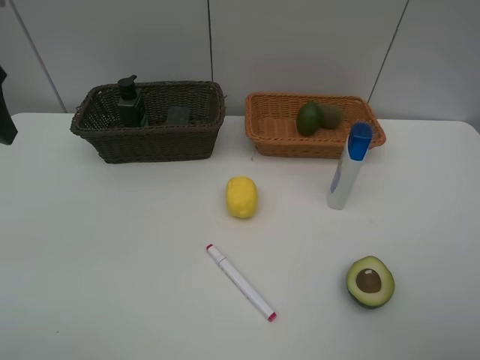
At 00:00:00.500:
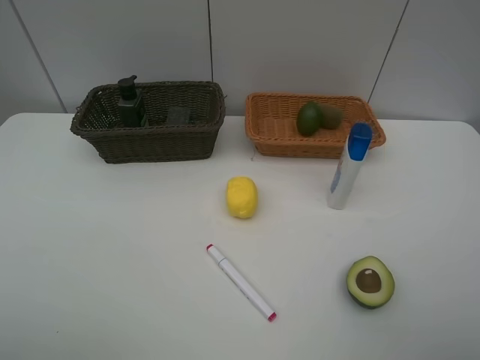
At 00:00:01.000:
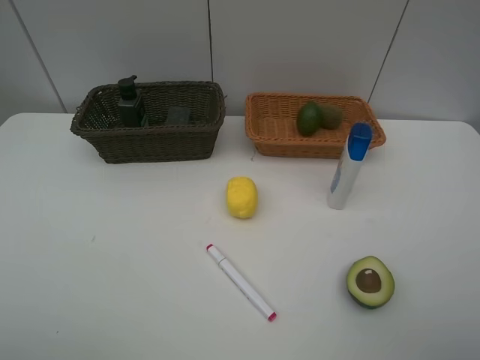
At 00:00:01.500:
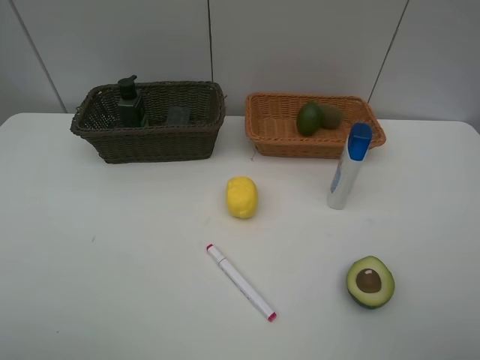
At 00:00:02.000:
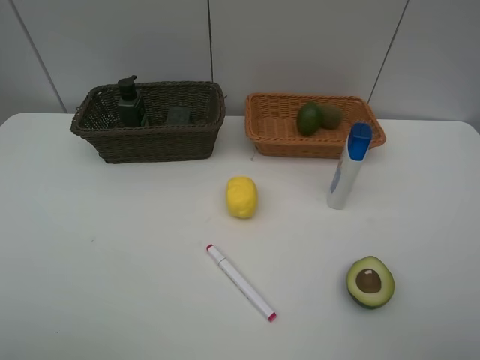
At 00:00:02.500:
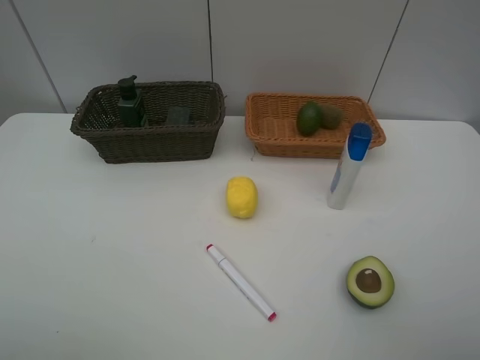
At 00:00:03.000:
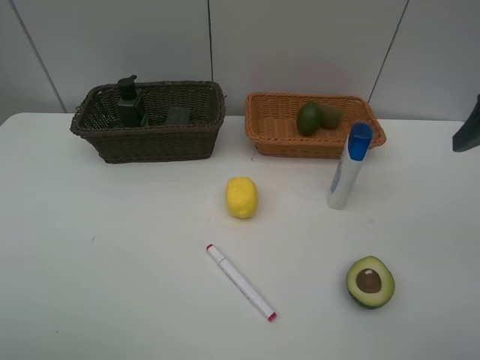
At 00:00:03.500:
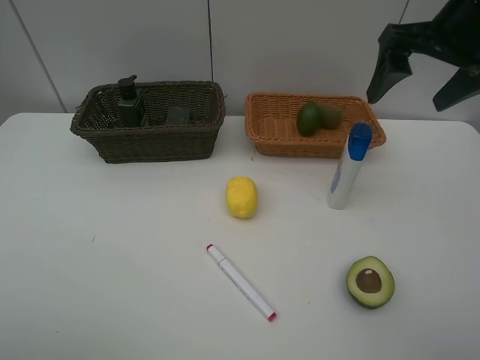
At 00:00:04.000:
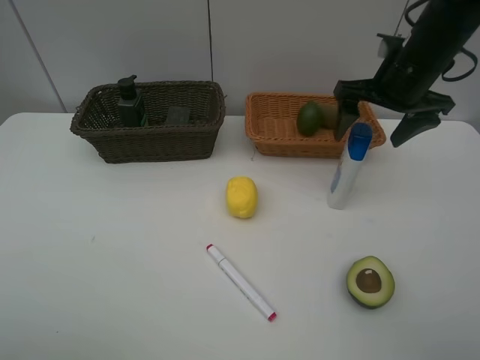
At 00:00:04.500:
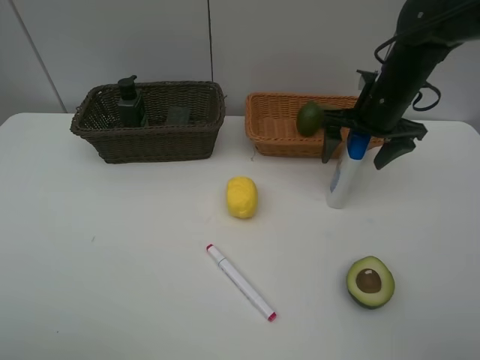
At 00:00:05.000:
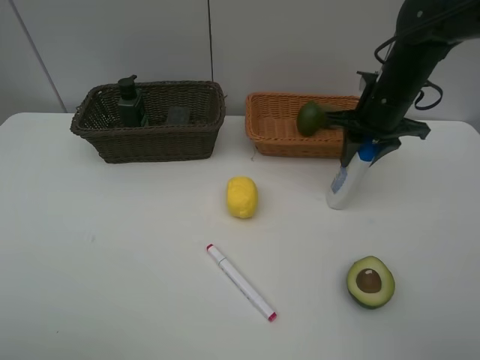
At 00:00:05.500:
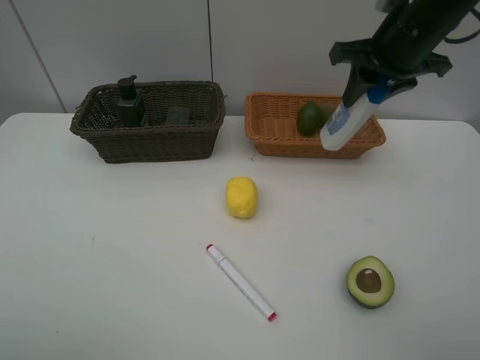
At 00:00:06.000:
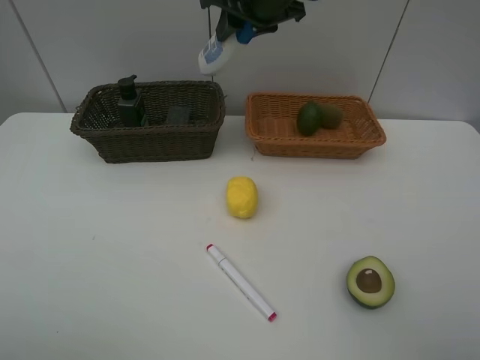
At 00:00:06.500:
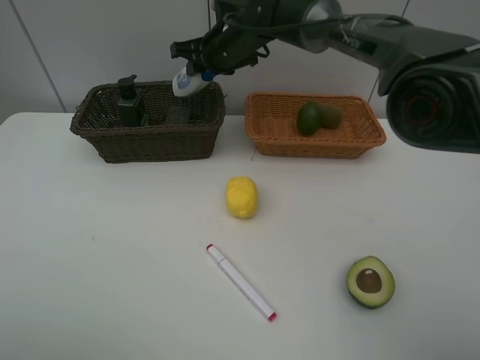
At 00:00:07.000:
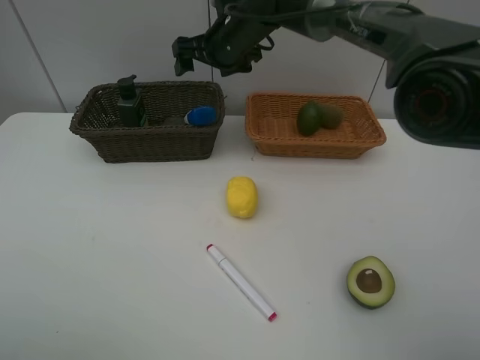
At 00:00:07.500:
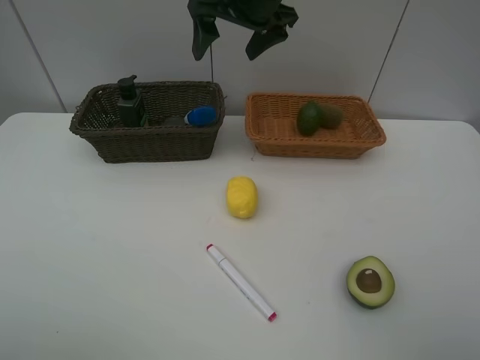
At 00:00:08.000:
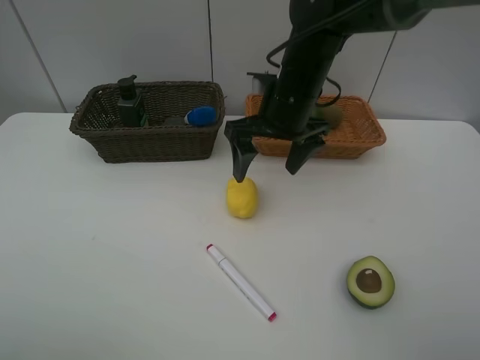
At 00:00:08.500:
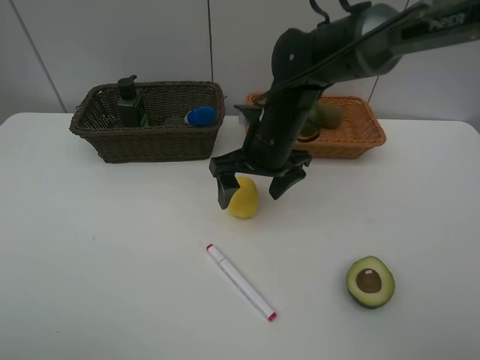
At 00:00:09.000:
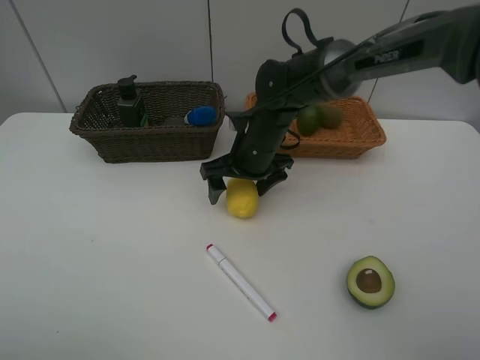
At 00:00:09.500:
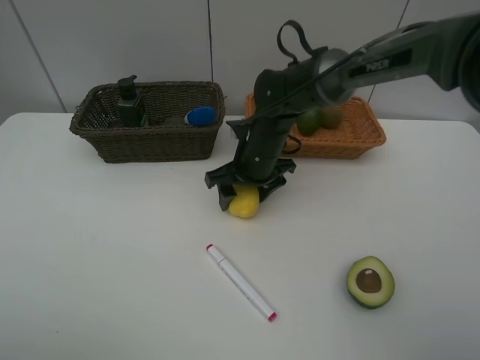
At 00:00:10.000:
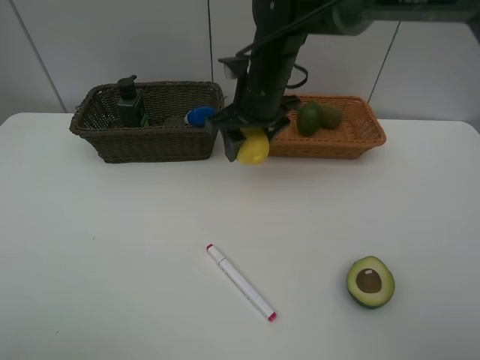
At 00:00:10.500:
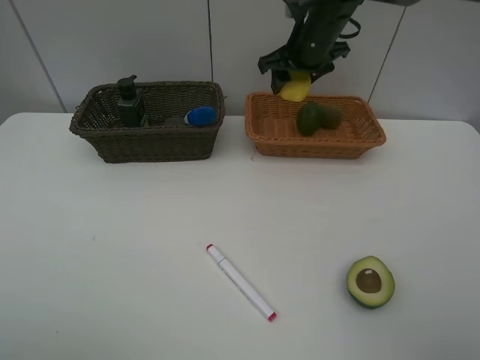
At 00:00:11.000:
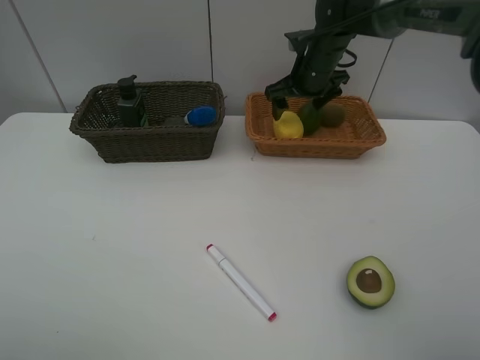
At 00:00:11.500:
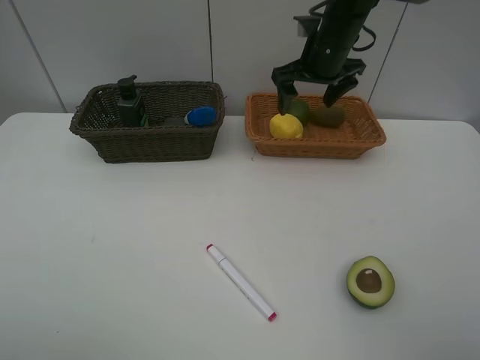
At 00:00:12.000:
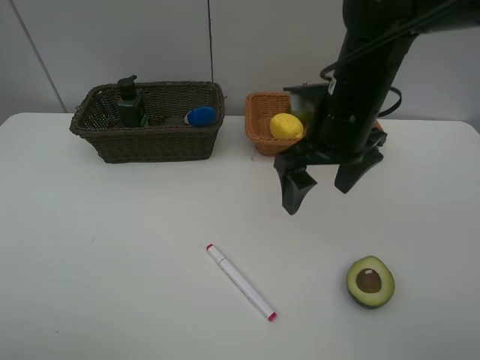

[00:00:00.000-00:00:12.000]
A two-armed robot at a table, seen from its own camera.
Task of the whole recording: Place multiple objects separately in different baskets.
Step, 00:00:00.000 to 00:00:05.000: Pick up the shampoo with right gripper.
Step, 00:00:05.500 to 00:00:06.500: Place the shampoo in the dark basket with right gripper.
Step, 00:00:07.000 to 00:00:09.500: Pick up the lemon with right gripper.
Step, 00:00:10.000 to 00:00:11.000: Place the lemon in the light basket with right gripper.
00:00:02.000 to 00:00:04.000: The right gripper moves forward, roughly 35 cm.
00:00:04.000 to 00:00:06.000: The right gripper travels to the left by roughly 20 cm, and closes.
00:00:06.000 to 00:00:08.000: The right gripper goes roughly 15 cm downward and backward, and opens up.
00:00:08.000 to 00:00:10.000: The right gripper goes downward and returns, roughly 10 cm each way, and closes.
00:00:10.000 to 00:00:12.000: The right gripper shifts approximately 15 cm backward and to the right, and opens its fingers.

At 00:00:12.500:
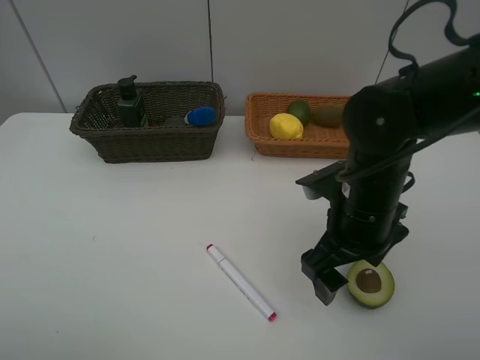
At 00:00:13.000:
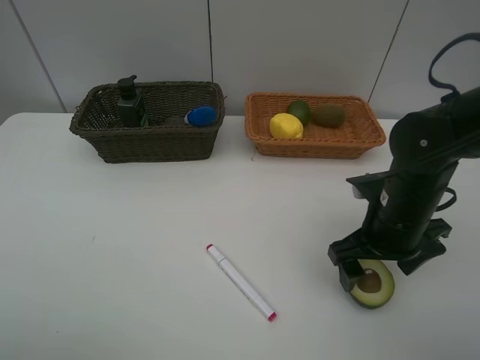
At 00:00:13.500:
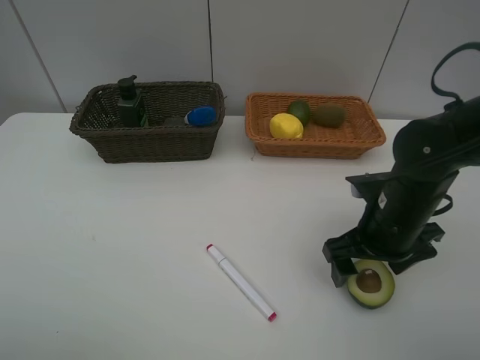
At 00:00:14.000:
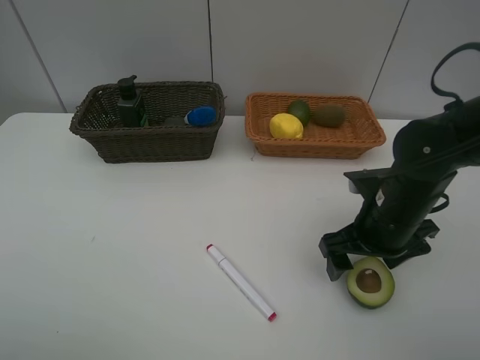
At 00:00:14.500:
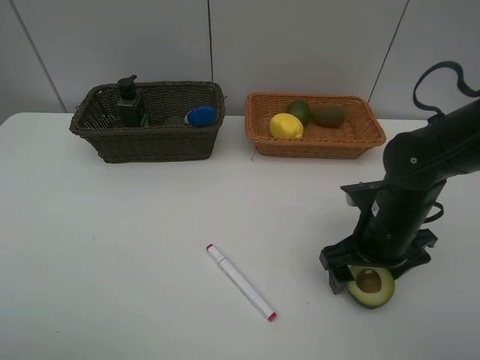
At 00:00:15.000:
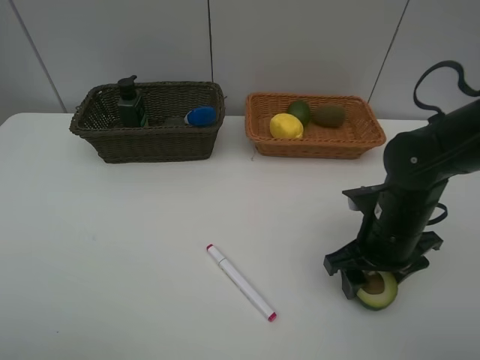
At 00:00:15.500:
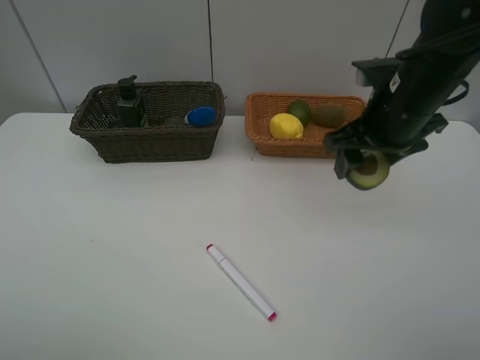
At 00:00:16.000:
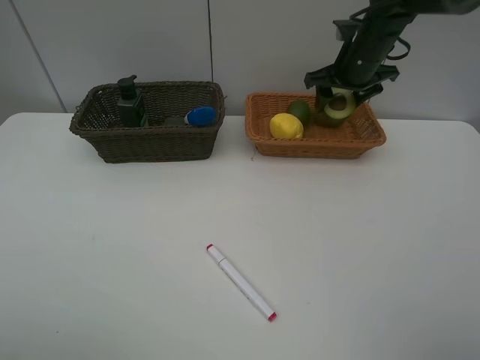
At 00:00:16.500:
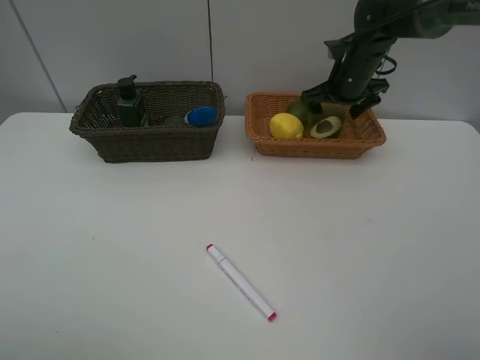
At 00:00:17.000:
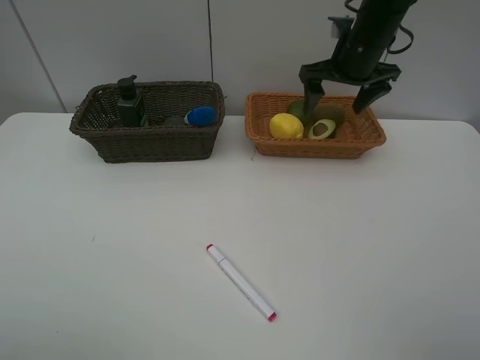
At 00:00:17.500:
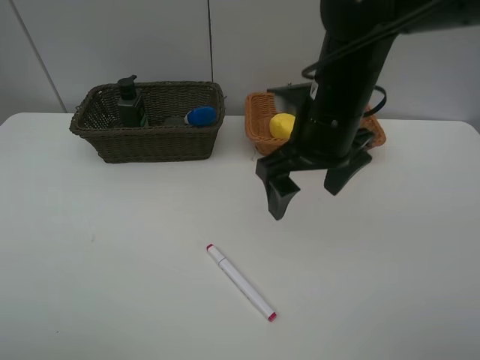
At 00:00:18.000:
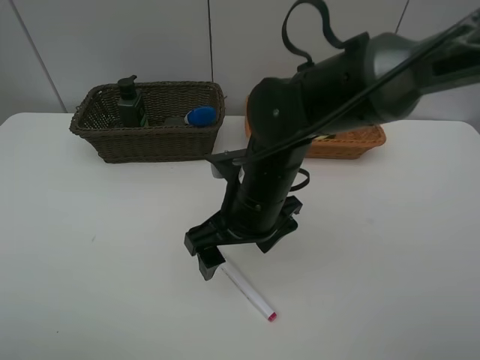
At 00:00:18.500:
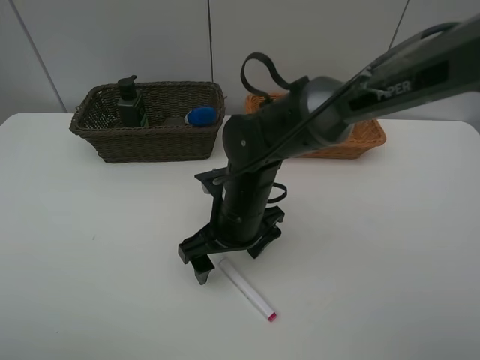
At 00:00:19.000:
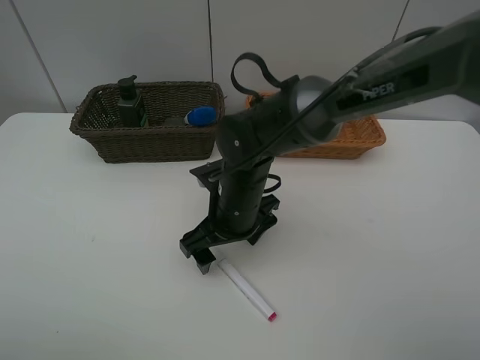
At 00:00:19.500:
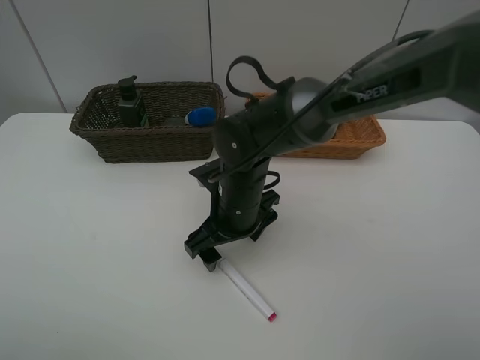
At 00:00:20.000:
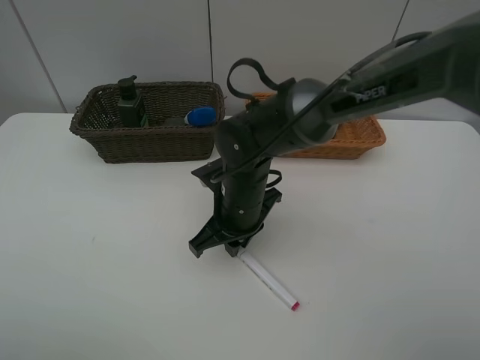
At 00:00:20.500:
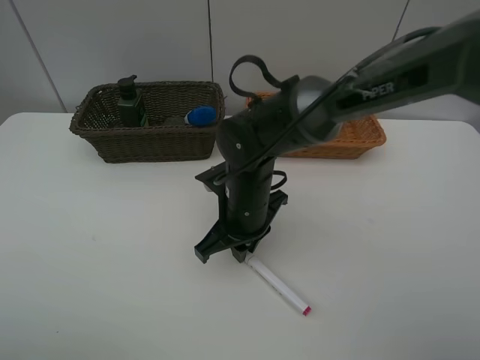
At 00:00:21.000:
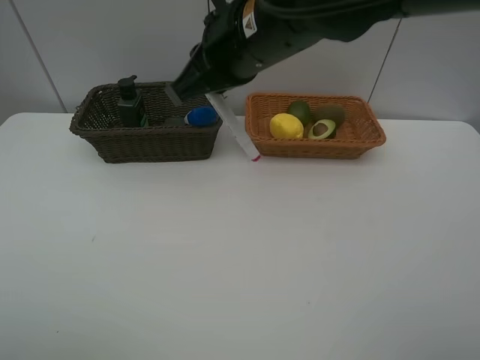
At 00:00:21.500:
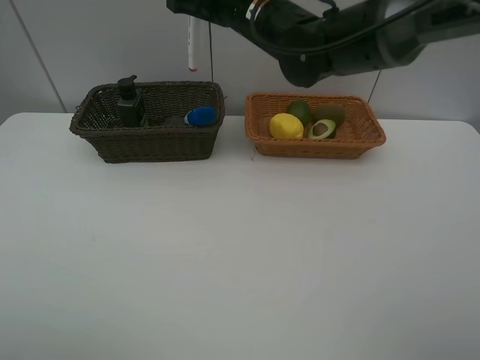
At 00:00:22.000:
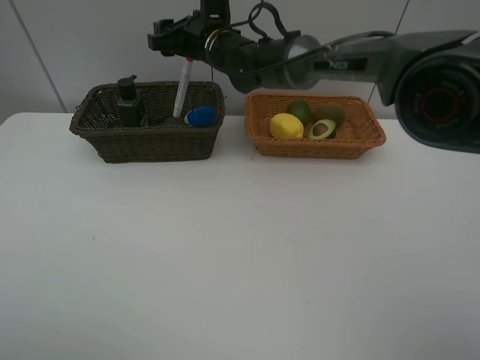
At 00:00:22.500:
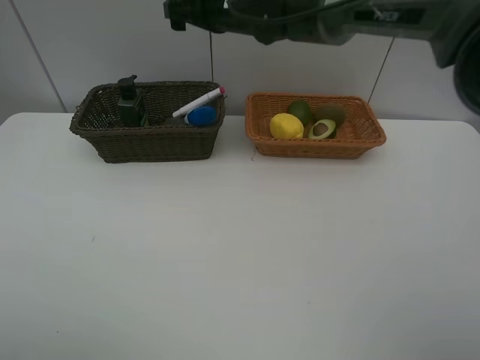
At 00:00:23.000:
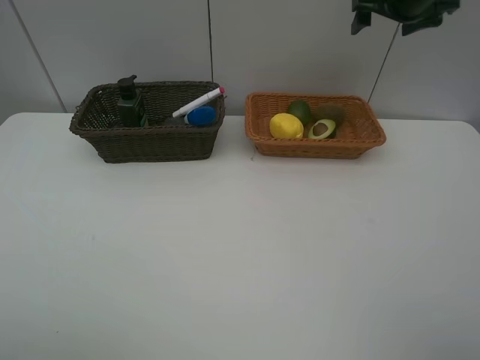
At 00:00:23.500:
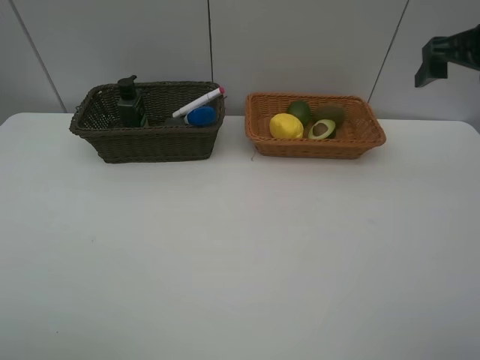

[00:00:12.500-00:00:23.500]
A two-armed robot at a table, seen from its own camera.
Task of the whole recording: Place multiple objects separately in different baskets.
Step, 00:00:12.500 to 00:00:15.000: Pick up the avocado with right gripper.
Step, 00:00:15.500 to 00:00:16.500: Place the avocado in the light basket with right gripper.
Step, 00:00:17.000 to 00:00:20.500: Pick up the red marker with right gripper.
Step, 00:00:21.000 to 00:00:22.000: Place the red marker in the dark basket with right gripper.
00:00:12.500 to 00:00:14.500: The right gripper moves to the right, some 5 cm.
00:00:14.500 to 00:00:16.000: The right gripper goes about 25 cm forward and upward.
00:00:16.000 to 00:00:18.000: The right gripper goes approximately 30 cm backward and to the left.
00:00:18.000 to 00:00:20.000: The right gripper heads downward, covering approximately 5 cm, and closes up.
00:00:20.000 to 00:00:21.500: The right gripper is displaced upward and forward by about 20 cm.
00:00:21.500 to 00:00:23.500: The right gripper travels to the right by about 30 cm, and opens.

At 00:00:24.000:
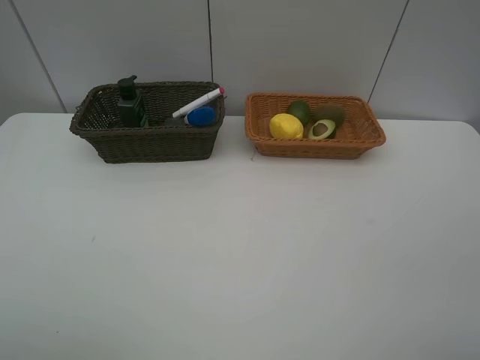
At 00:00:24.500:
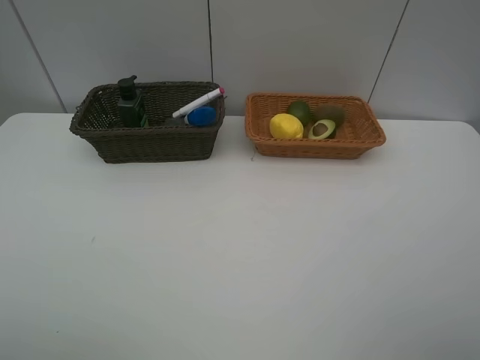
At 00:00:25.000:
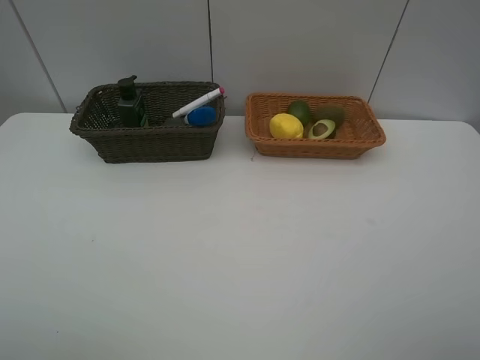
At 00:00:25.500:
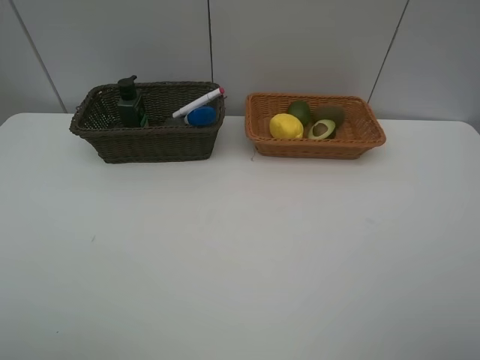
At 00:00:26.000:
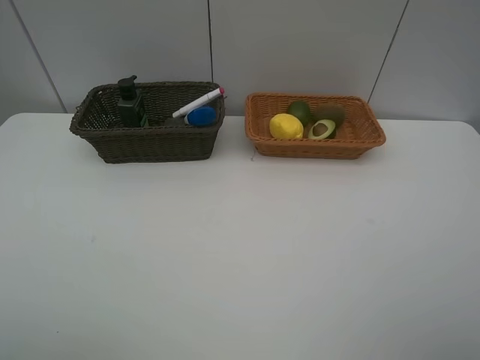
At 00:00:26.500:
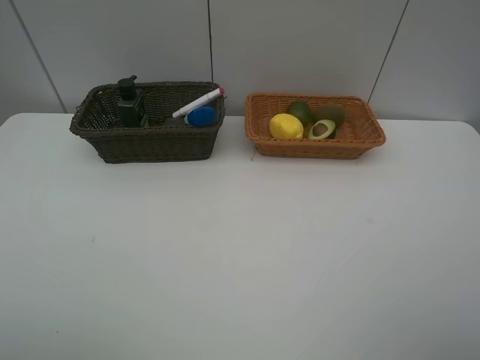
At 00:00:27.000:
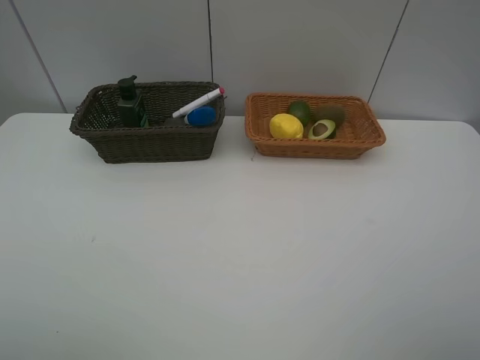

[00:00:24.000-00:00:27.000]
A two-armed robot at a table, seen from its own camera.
Task of the whole recording: Place multiple objects separately in different baskets.
00:00:25.500 to 00:00:27.000: The two grippers keep their place.
